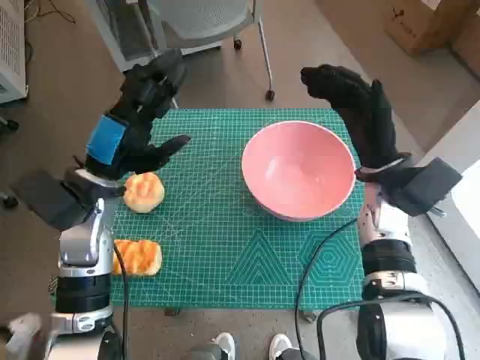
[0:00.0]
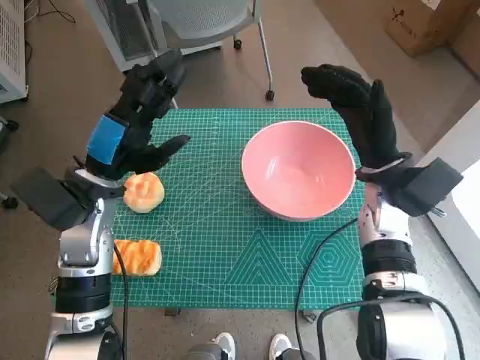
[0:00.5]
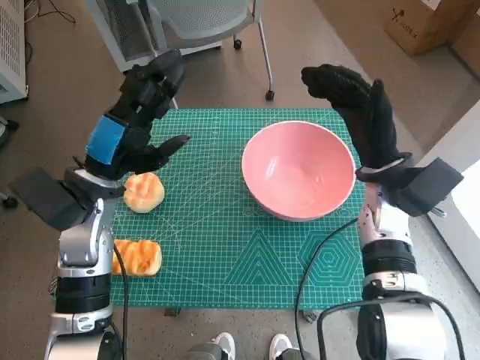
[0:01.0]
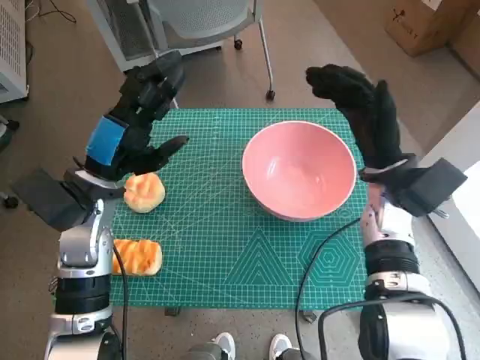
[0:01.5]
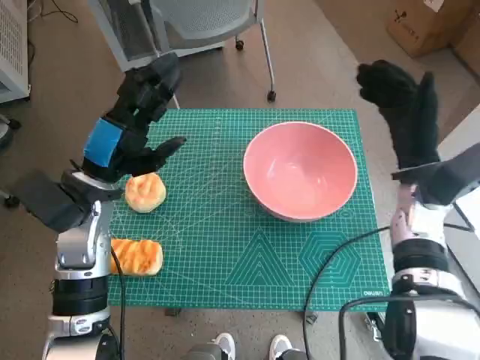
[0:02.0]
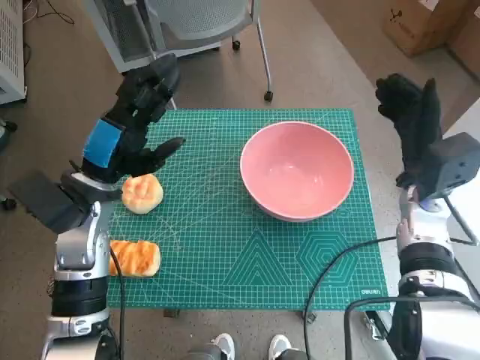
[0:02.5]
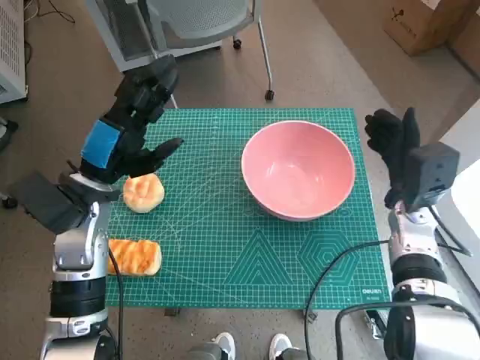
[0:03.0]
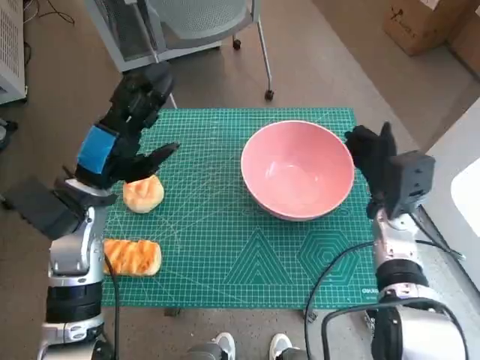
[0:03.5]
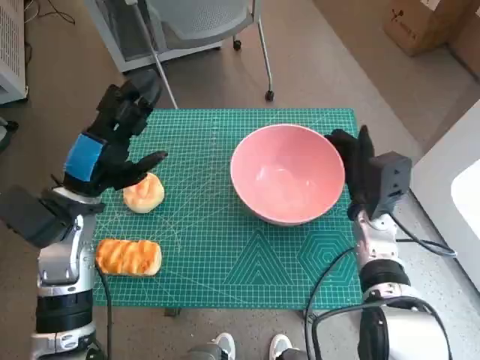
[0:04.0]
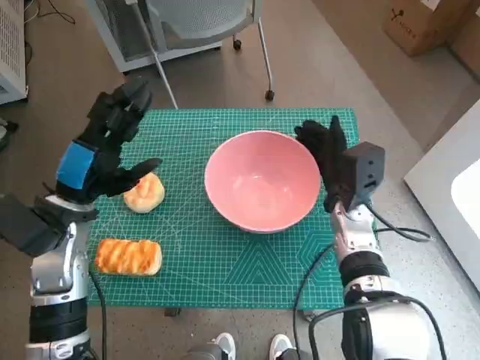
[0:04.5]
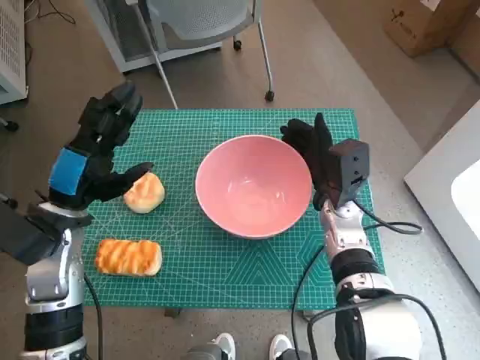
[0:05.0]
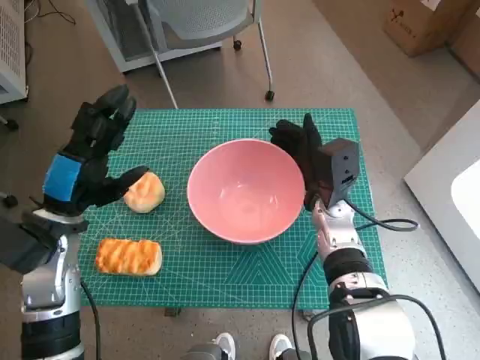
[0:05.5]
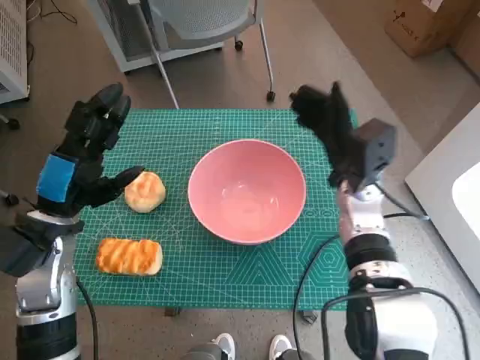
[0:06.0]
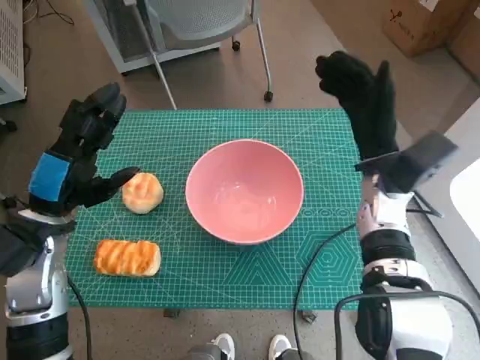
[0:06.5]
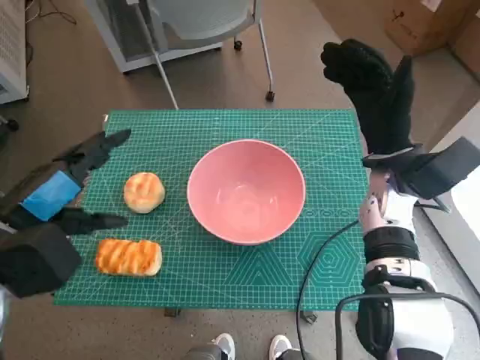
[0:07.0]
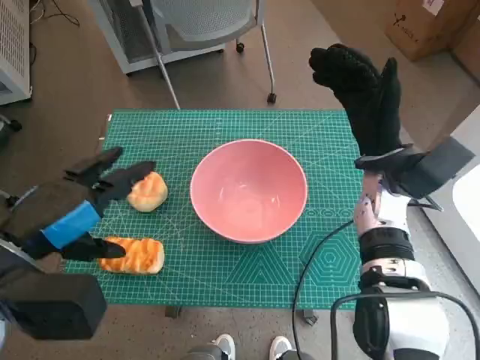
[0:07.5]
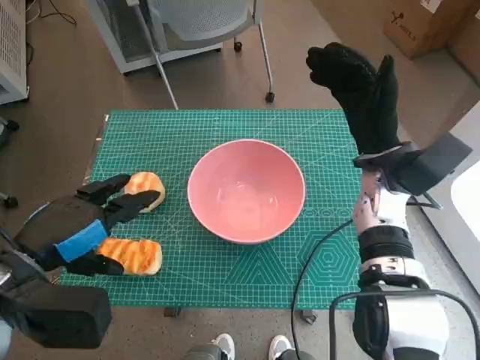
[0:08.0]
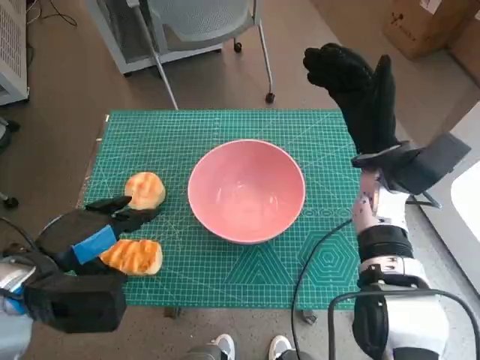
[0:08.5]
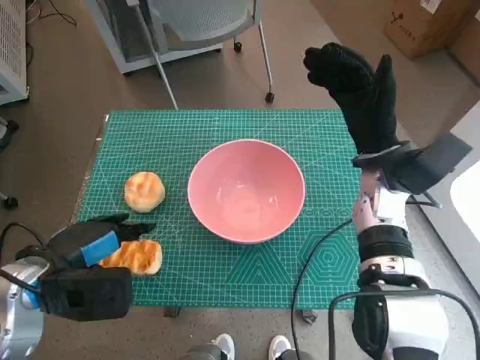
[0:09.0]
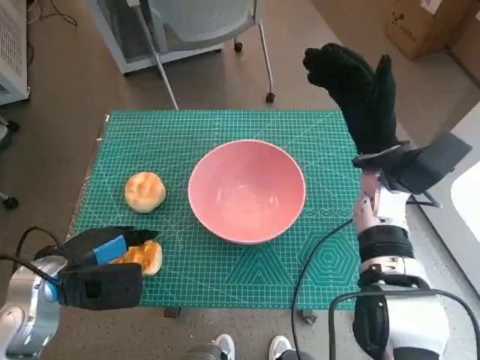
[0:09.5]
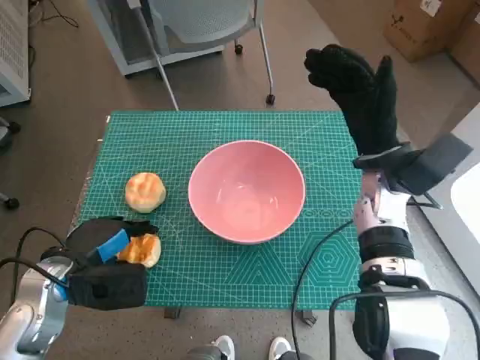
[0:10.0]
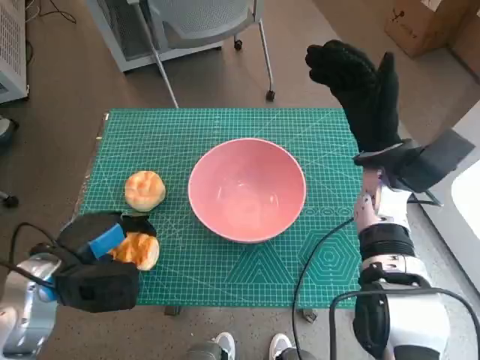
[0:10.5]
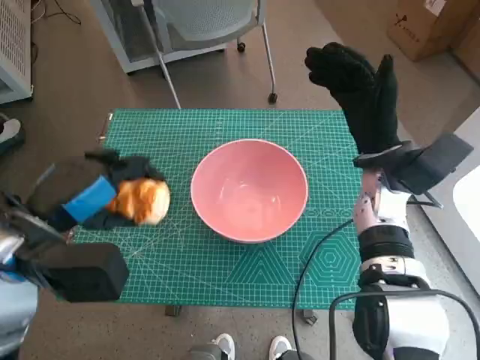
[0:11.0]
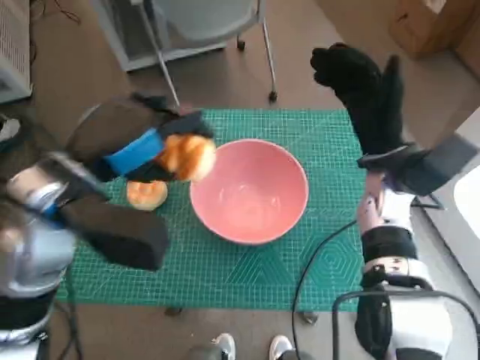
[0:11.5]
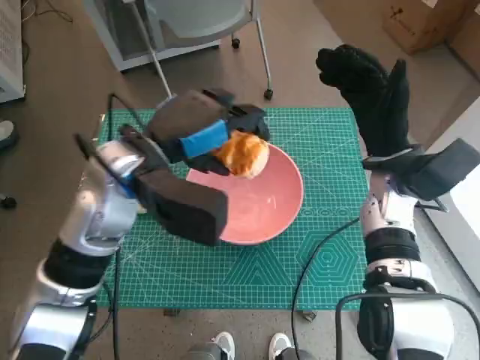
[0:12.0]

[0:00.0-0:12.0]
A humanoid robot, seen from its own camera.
Step, 0:00.0 to 0:05.5: Move the pink bowl to the center of table with right hand.
Step, 0:06.0 to 0:10.0: Grasp the long bread with left hand.
0:02.0 to 0:04.0: The right hand heads downward, covering approximately 10 cm.
0:04.0 to 0:06.0: The right hand ends up some 5 cm from where it was.
0:06.0 to 0:08.0: The right hand moves roughly 5 cm. Meanwhile the left hand moves backward, about 5 cm.
0:08.0 to 0:10.0: The left hand shifts about 10 cm downward.
0:10.0 to 0:12.0: The left hand heads upward, to the right and forward, covering approximately 20 cm.

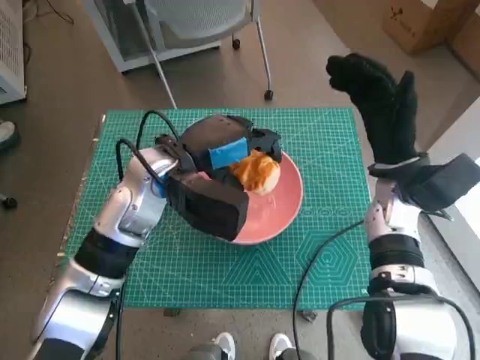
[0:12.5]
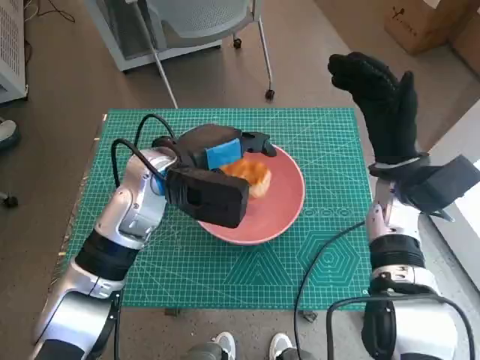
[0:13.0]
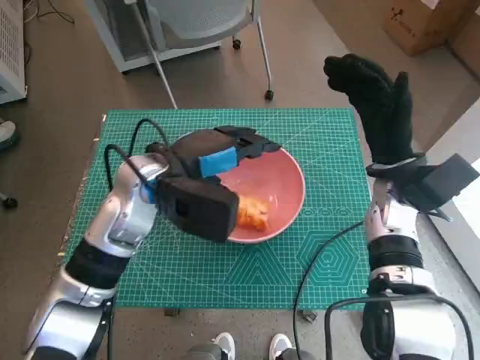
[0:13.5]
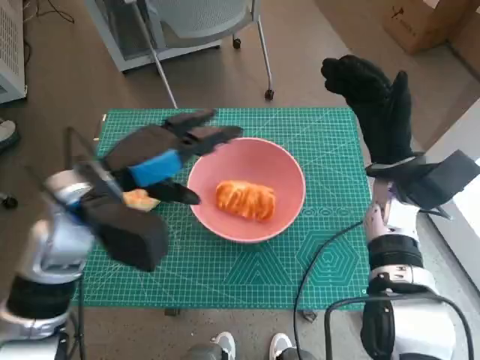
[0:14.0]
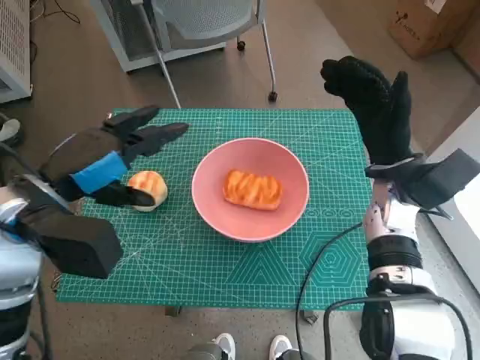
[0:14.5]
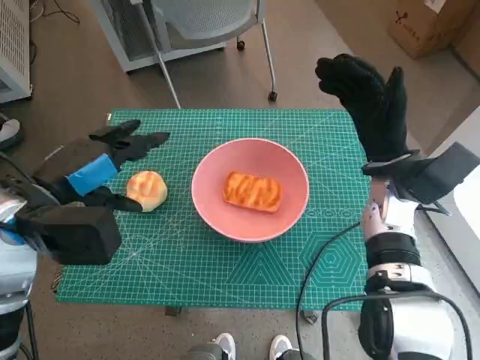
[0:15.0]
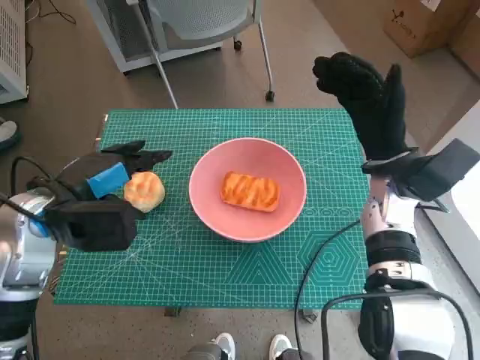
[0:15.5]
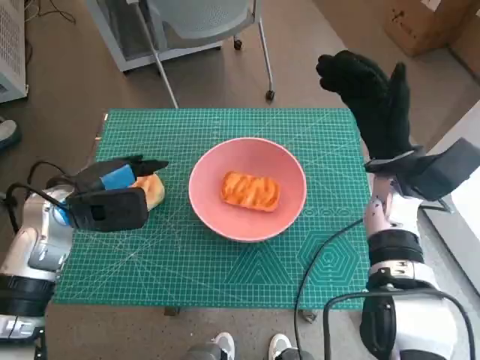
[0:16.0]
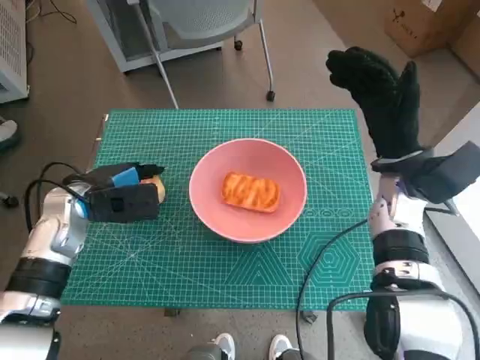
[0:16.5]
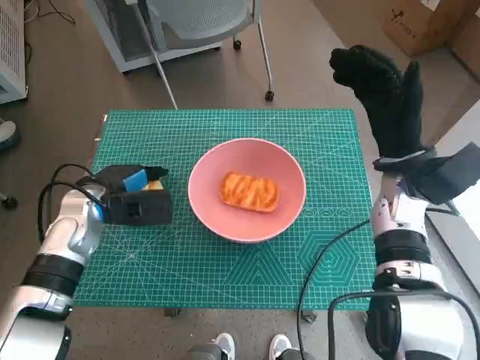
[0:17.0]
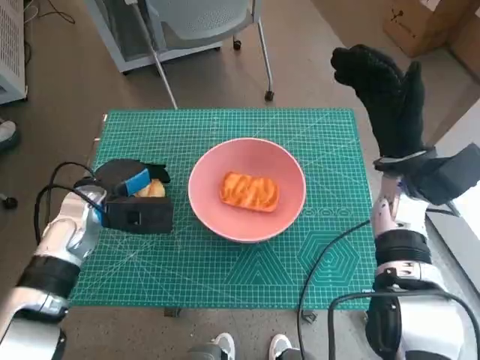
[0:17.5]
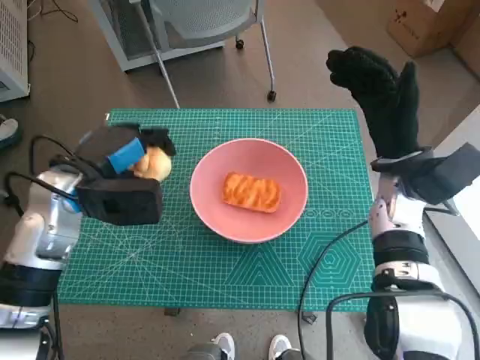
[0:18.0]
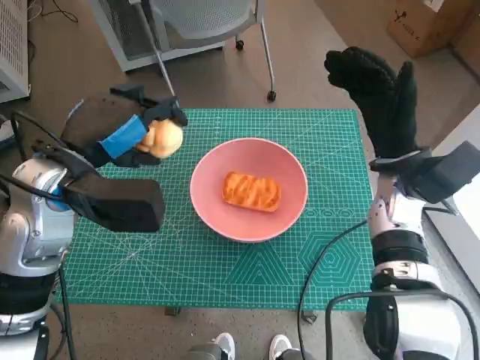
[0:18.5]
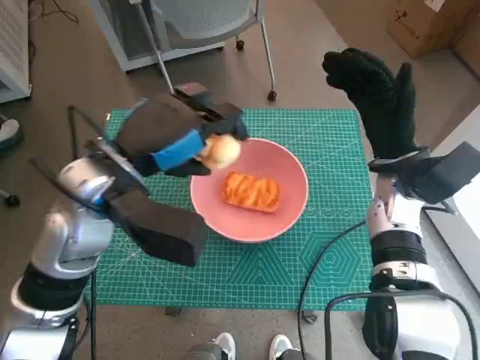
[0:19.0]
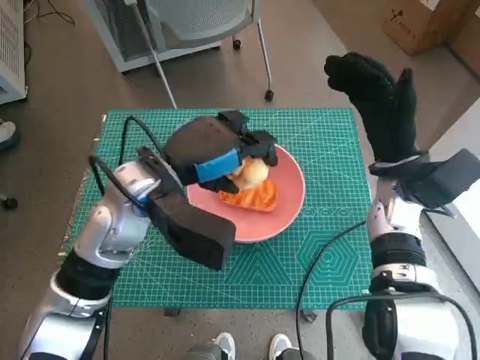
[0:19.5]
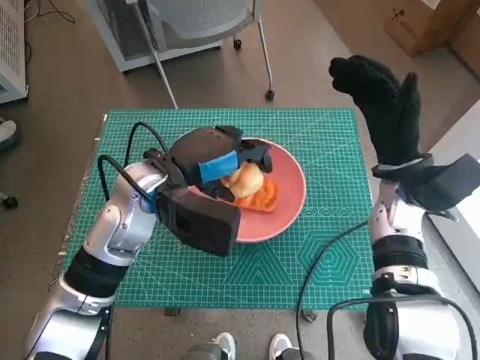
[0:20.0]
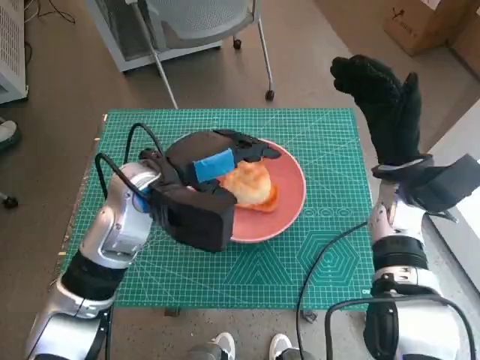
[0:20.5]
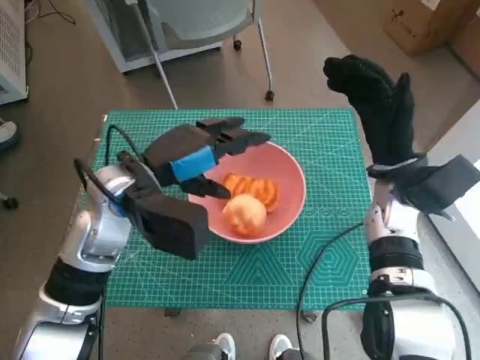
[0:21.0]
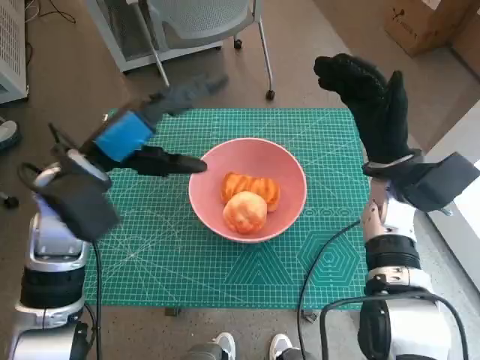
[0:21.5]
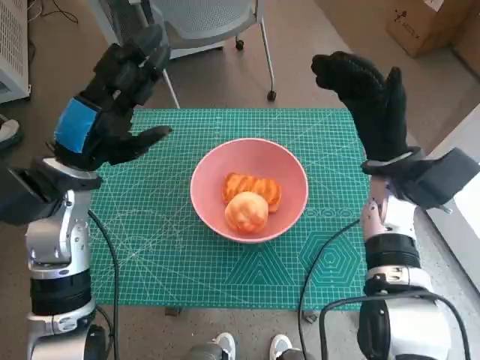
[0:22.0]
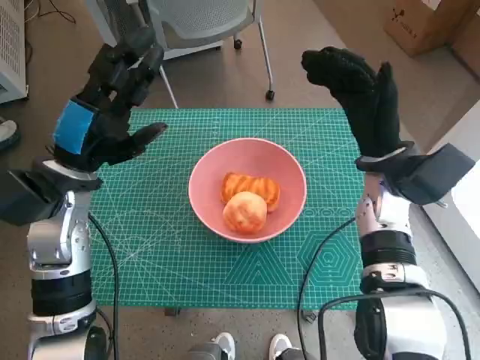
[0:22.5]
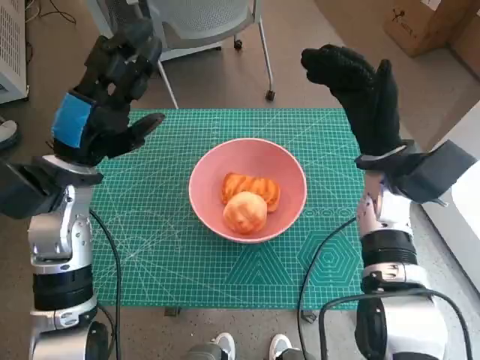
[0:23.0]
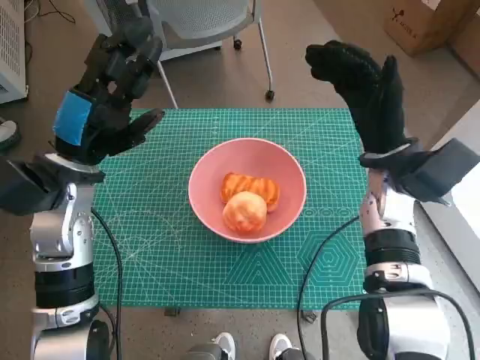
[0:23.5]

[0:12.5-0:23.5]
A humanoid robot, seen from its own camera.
Step, 0:13.5 to 0:17.0: Grasp the round bread with left hand.
Step, 0:17.5 to 0:20.5: Place the round bread in pink bowl with left hand.
0:12.5 to 0:14.5: The left hand moves to the left and backward, approximately 15 cm.
0:14.5 to 0:16.0: The left hand shifts approximately 5 cm downward.
0:16.0 to 0:18.0: The hands make only small movements.
0:18.0 to 0:20.0: The left hand moves to the right, some 10 cm.
0:20.0 to 0:21.5: The left hand goes about 5 cm to the left.

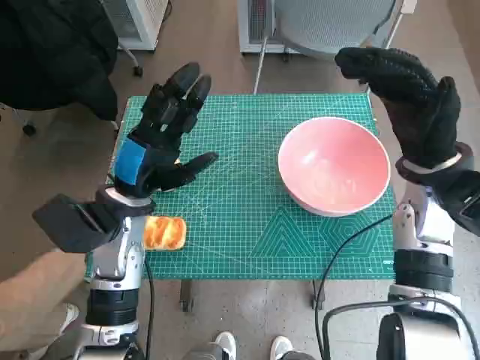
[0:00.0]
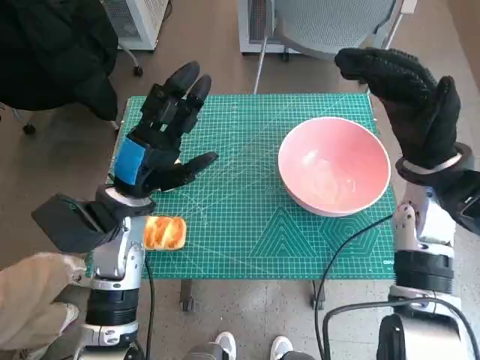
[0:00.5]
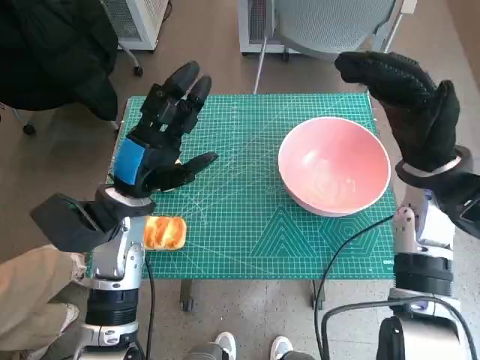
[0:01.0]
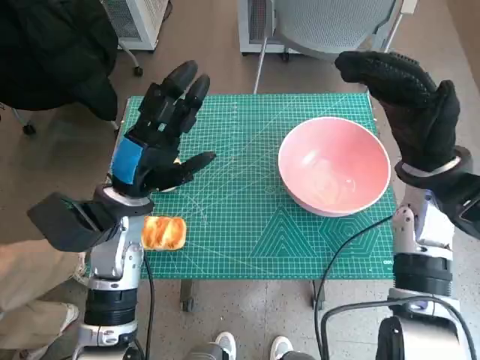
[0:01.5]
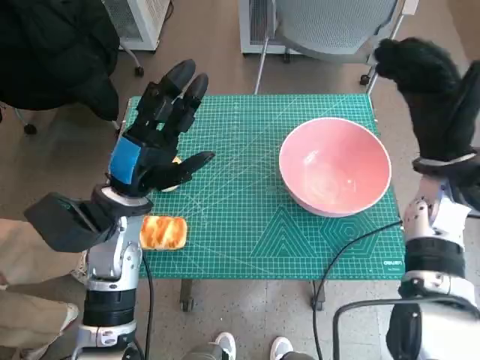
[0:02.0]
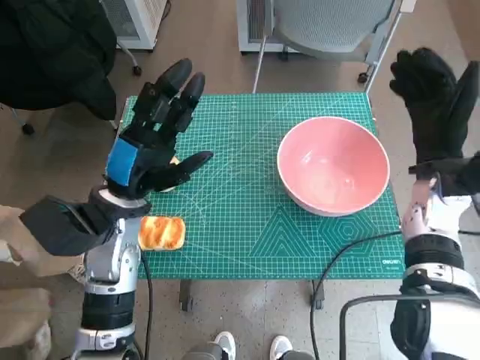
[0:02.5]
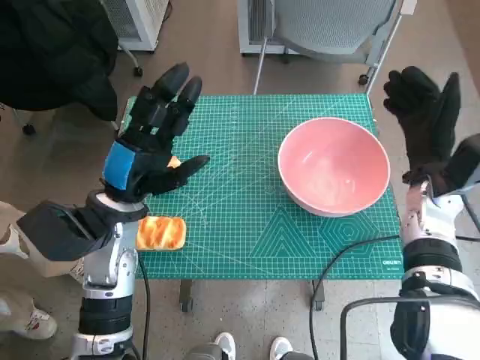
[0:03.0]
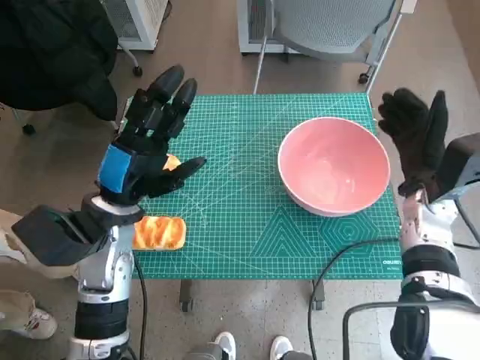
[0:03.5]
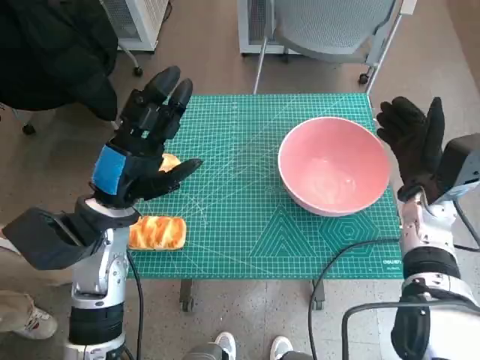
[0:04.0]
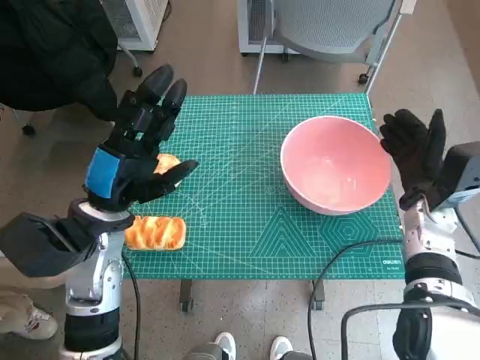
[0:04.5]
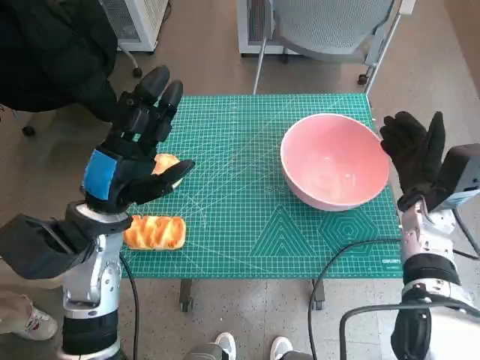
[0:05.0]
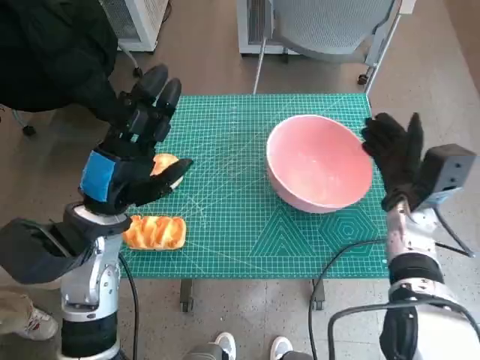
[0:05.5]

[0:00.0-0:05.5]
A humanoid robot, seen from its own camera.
0:02.0 to 0:03.5: The right hand shifts roughly 5 cm downward.
